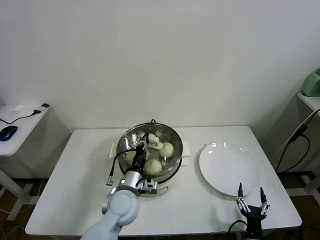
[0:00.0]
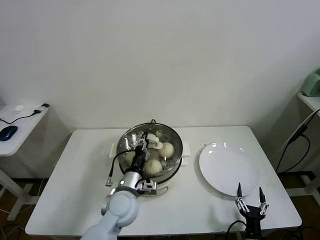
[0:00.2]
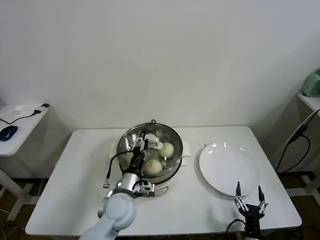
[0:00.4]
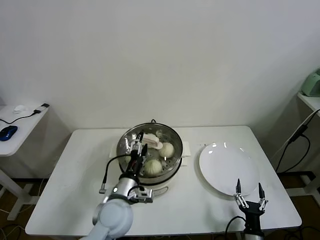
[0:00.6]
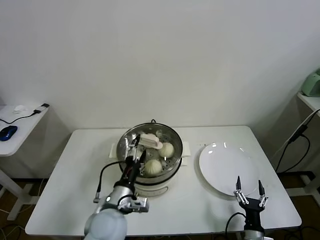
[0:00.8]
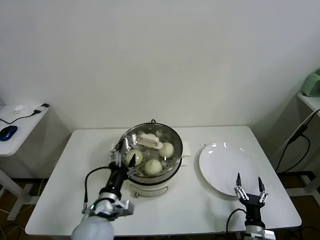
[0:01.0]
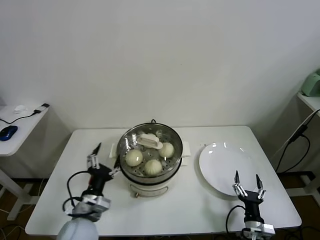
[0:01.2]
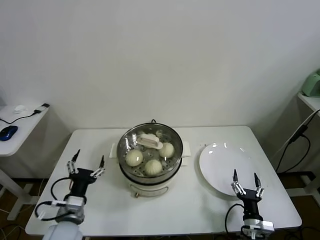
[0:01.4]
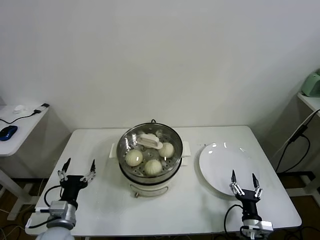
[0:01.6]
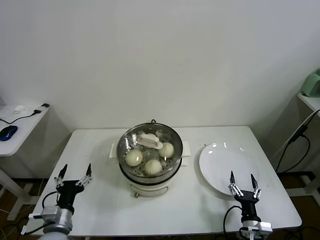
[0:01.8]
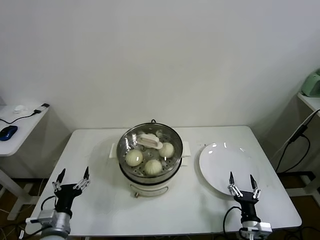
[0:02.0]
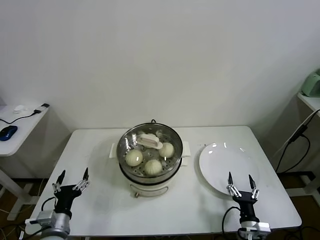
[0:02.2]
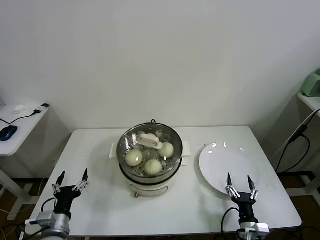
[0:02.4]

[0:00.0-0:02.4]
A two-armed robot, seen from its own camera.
Task of the whole recording: take steamed baozi put them in steamer.
0.0 to 1.2 s: The left gripper heads to the left and backward, covering some 10 cm, and opens its fingers. Meanwhile the right gripper changes place by some 5 cm.
1.2 to 2.4 s: The left gripper is displaced to the left and downward by roughly 15 cm.

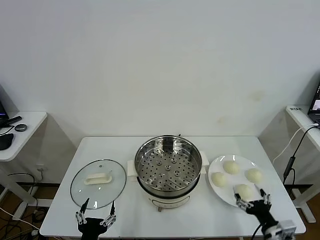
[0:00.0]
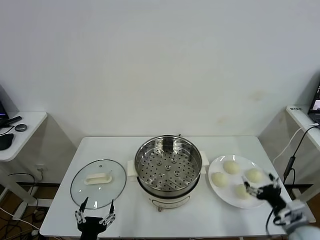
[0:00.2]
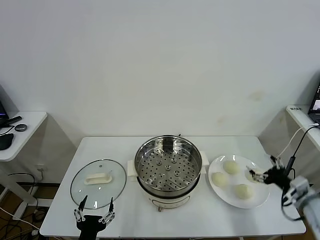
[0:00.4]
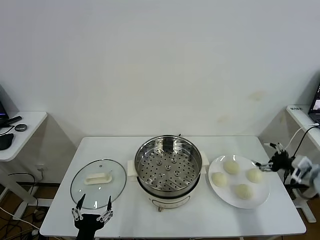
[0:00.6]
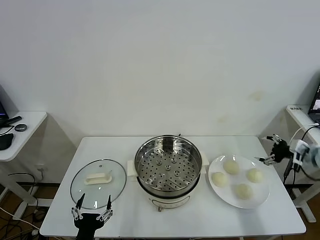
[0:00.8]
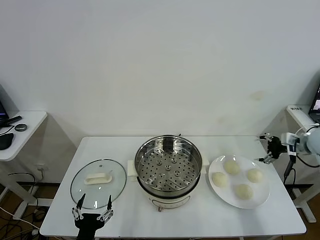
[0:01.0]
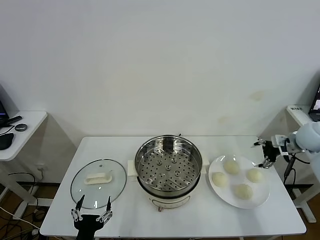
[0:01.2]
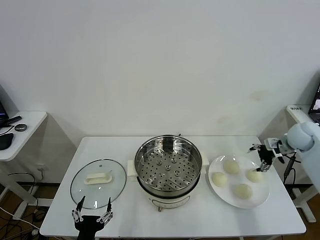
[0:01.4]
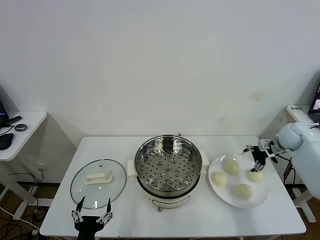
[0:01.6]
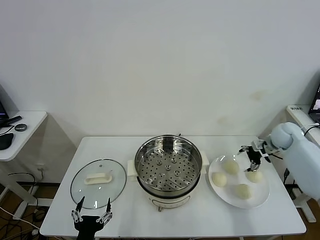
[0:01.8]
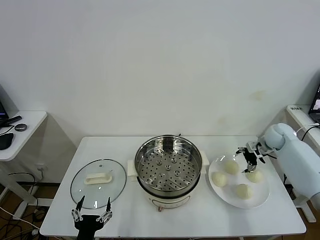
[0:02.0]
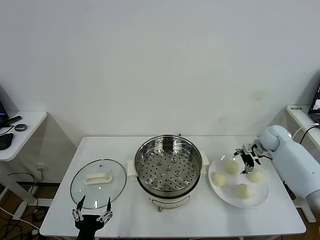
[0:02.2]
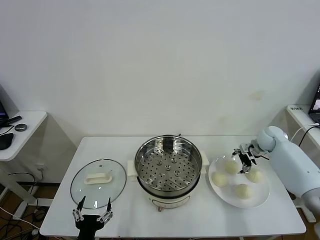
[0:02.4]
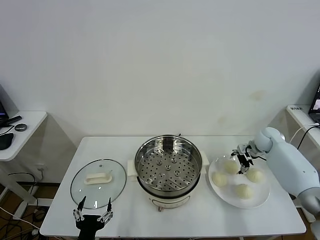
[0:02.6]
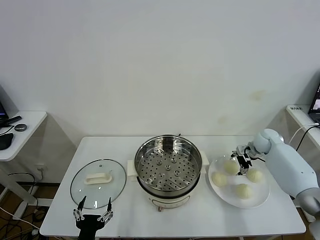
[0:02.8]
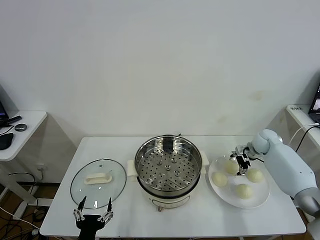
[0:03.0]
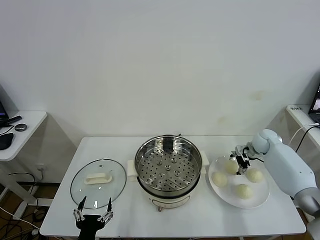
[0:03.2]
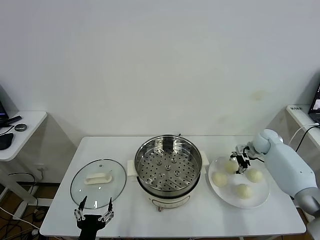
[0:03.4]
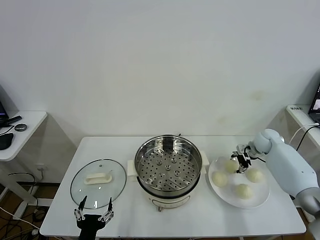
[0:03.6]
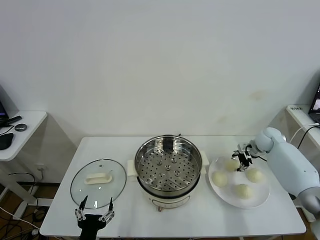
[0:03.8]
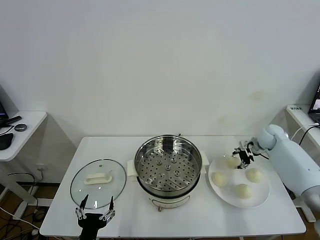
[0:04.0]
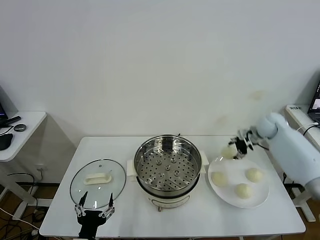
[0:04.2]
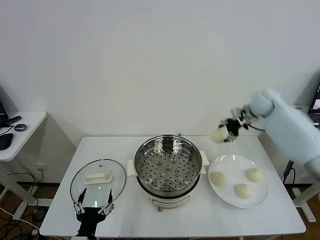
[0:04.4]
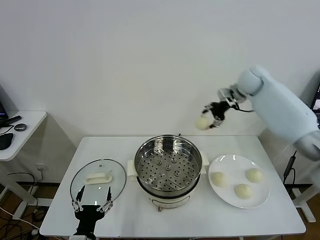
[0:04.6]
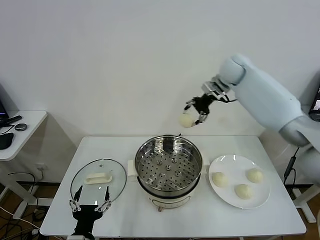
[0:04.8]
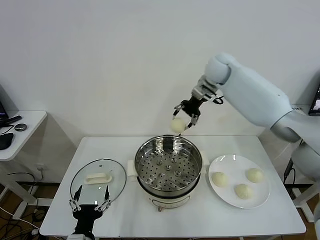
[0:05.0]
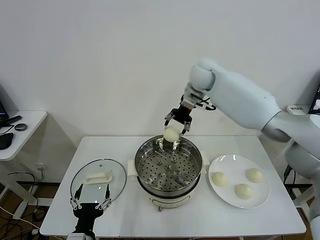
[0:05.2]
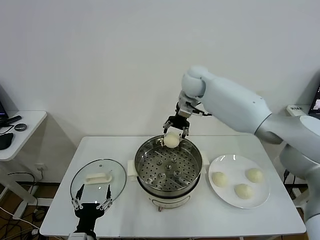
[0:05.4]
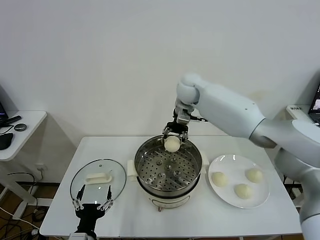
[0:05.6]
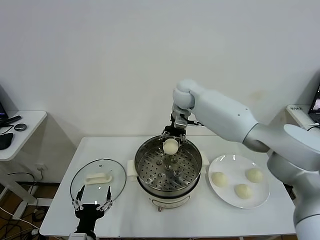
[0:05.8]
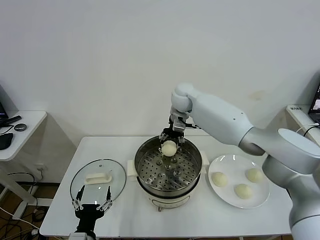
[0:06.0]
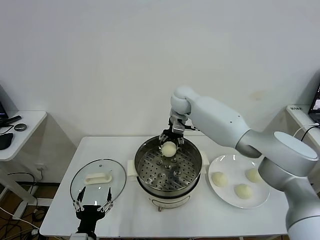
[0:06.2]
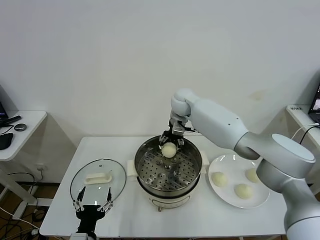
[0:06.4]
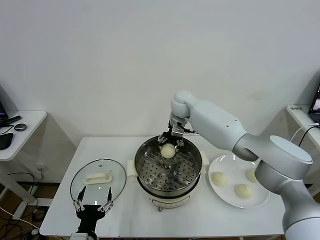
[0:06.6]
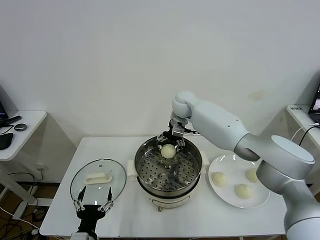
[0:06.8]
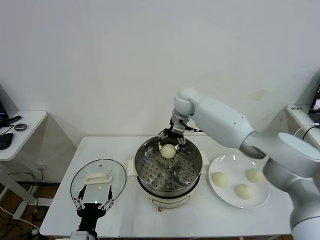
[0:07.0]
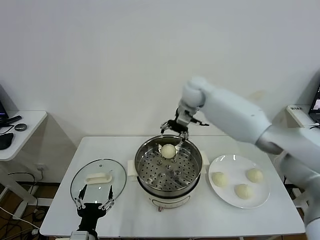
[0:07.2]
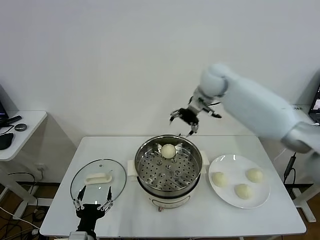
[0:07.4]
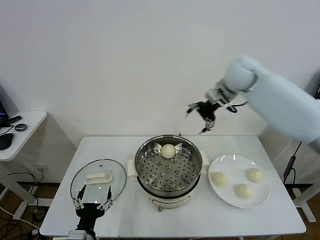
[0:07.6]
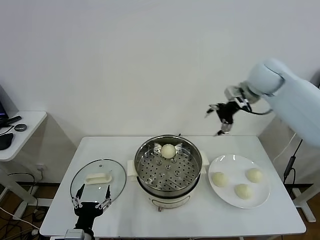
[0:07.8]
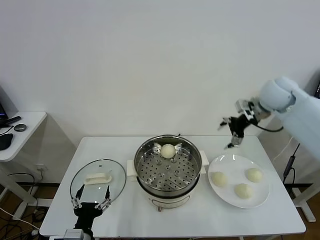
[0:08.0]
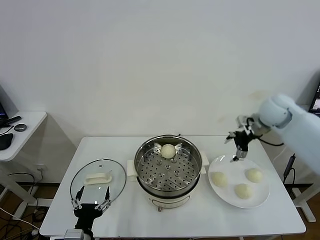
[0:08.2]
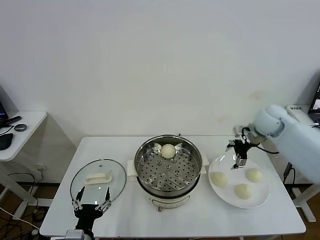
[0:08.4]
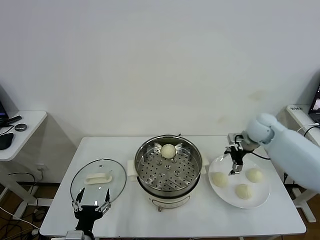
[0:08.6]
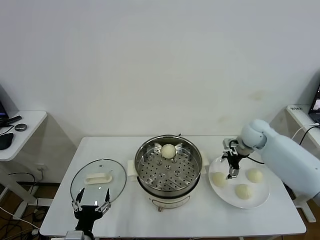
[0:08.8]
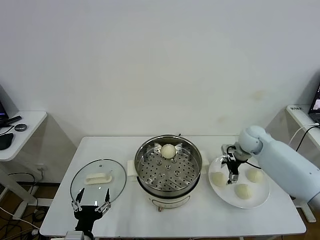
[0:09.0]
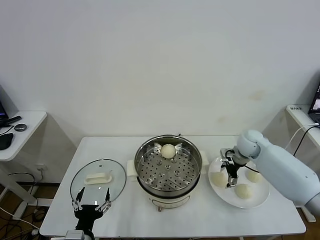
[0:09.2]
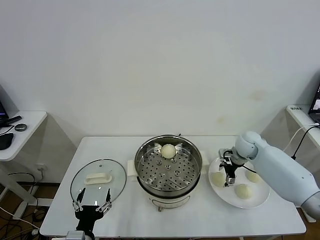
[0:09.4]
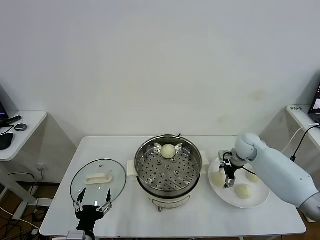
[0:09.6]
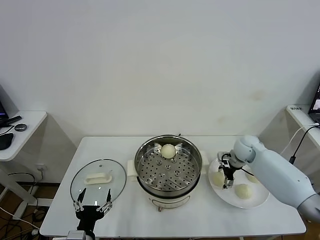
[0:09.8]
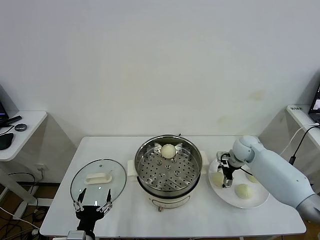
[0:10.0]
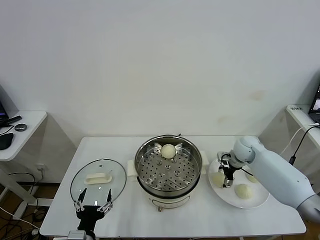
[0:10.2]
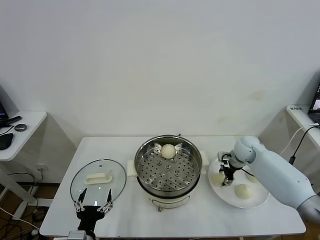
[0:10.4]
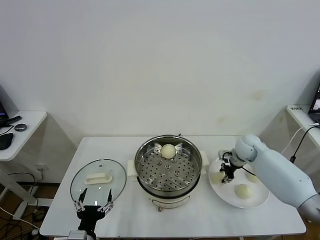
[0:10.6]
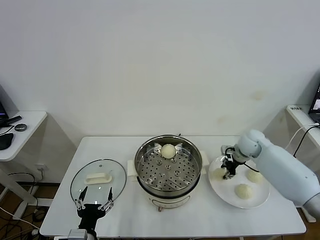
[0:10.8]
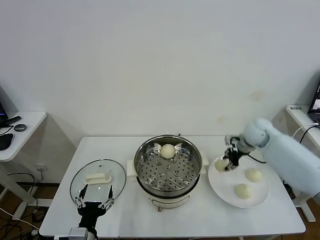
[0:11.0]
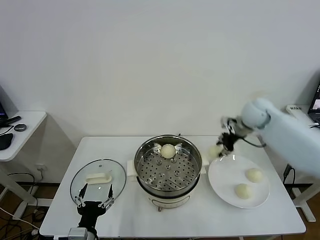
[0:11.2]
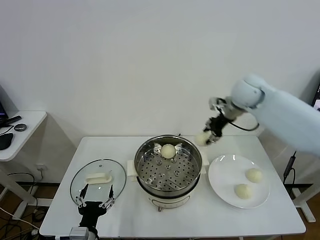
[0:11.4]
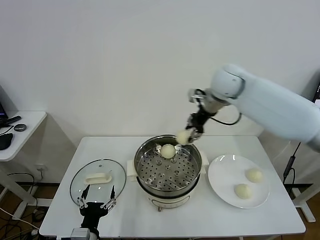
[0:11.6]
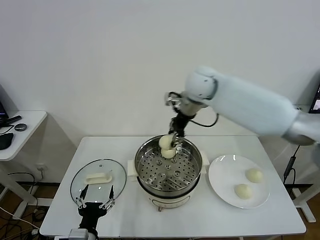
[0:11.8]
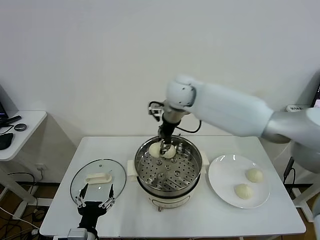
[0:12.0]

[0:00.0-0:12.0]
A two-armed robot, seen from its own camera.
Task of the whole recording: take steamed baozi put them in steamer.
Step, 0.0 to 3.4 s: Grasp the baozi in the plate with right gripper.
Step, 3.6 to 7.0 s: Place the baozi on the steamer with right gripper.
Step, 7.2 to 10.4 s: Grasp the baozi in the plate with right gripper.
1.6 to 3.0 s: The right gripper shifts approximately 10 cm downward and to the left.
3.0 to 4.4 s: The right gripper shifts some 15 cm upward, and closes up.
4.4 to 6.0 s: The right gripper goes approximately 30 cm to the left.
6.0 to 7.6 s: The right gripper is displaced to the right and upward by roughly 20 cm, and opens.
7.6 to 9.0 s: The right gripper goes some 25 cm downward.
9.0 to 10.4 s: The right gripper travels downward by some 5 cm, and closes its fingers.
10.4 to 12.0 s: The right gripper heads to the left and upward, covering roughly 35 cm.

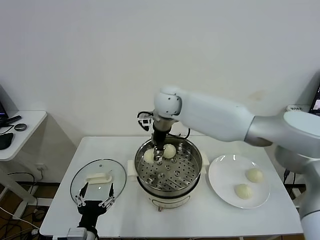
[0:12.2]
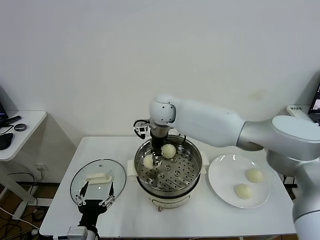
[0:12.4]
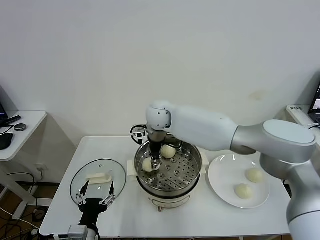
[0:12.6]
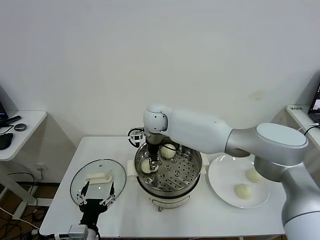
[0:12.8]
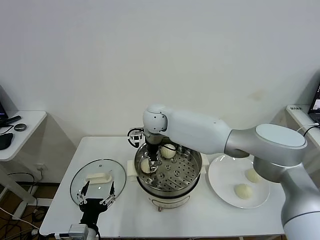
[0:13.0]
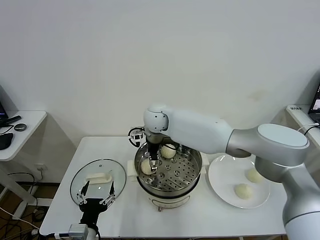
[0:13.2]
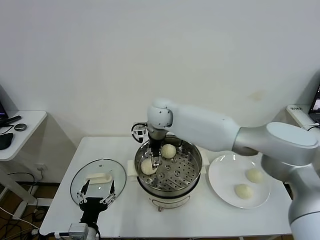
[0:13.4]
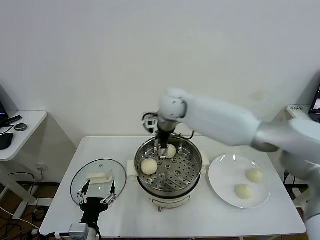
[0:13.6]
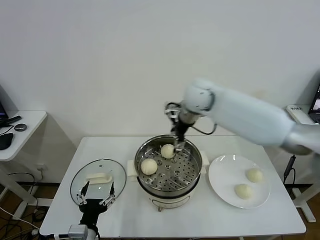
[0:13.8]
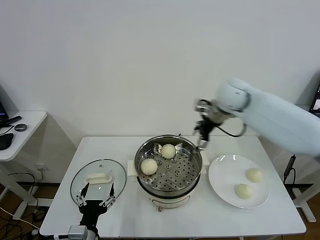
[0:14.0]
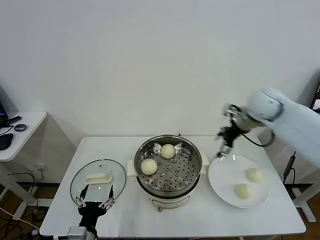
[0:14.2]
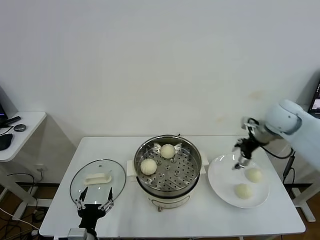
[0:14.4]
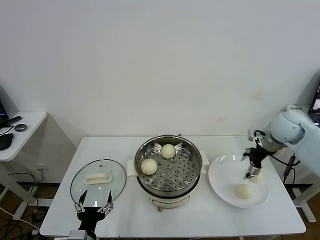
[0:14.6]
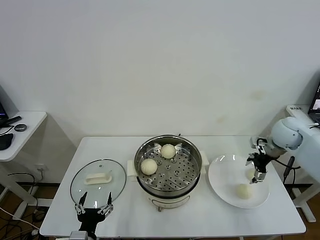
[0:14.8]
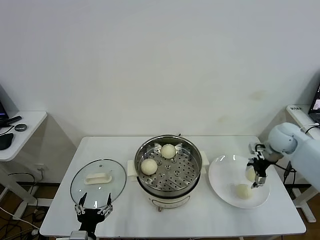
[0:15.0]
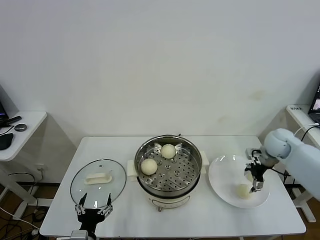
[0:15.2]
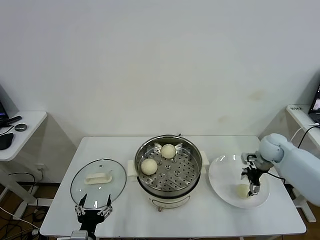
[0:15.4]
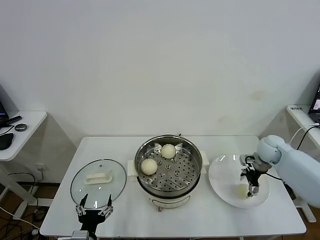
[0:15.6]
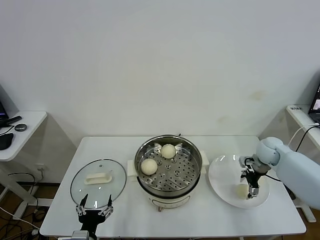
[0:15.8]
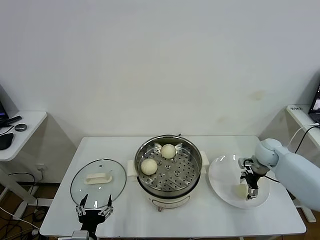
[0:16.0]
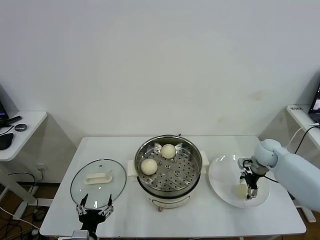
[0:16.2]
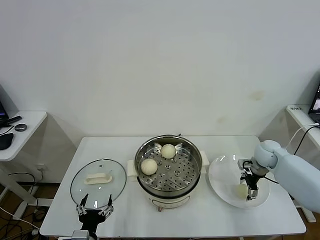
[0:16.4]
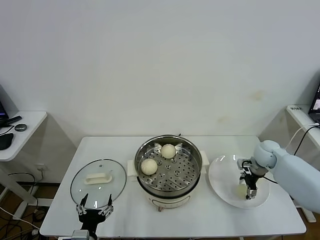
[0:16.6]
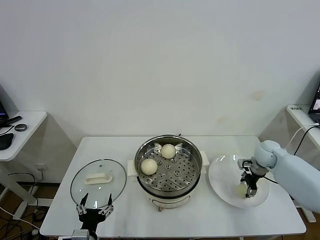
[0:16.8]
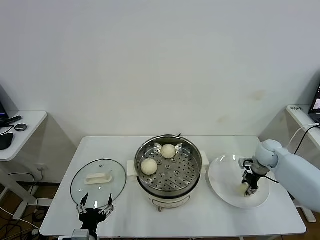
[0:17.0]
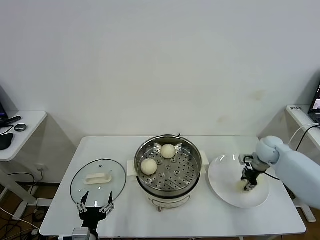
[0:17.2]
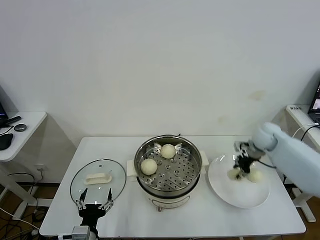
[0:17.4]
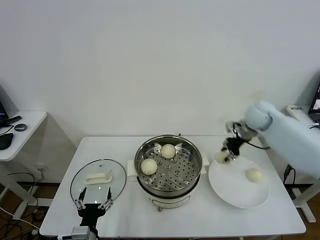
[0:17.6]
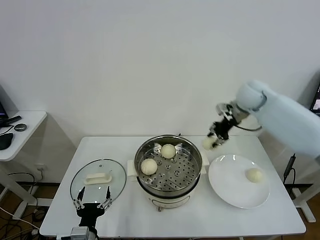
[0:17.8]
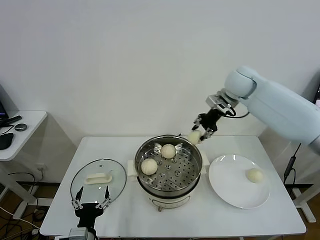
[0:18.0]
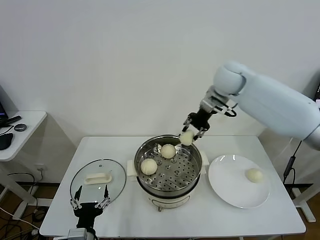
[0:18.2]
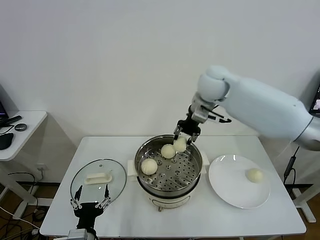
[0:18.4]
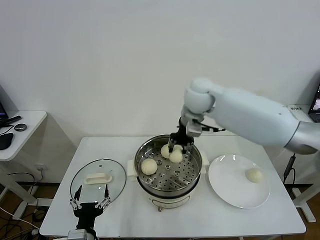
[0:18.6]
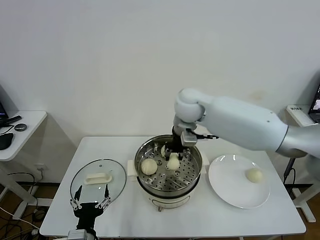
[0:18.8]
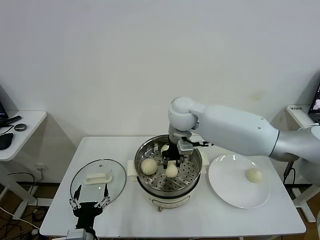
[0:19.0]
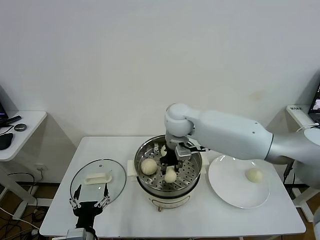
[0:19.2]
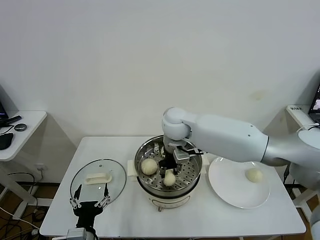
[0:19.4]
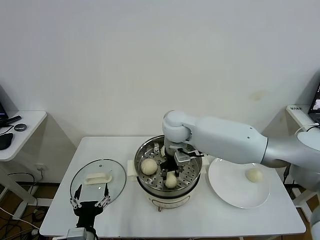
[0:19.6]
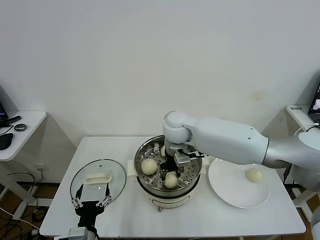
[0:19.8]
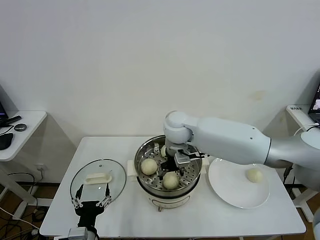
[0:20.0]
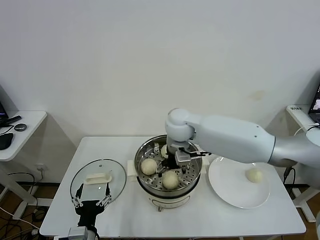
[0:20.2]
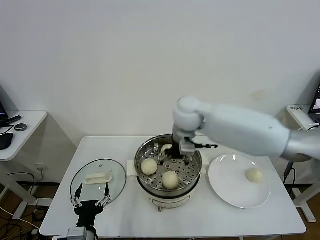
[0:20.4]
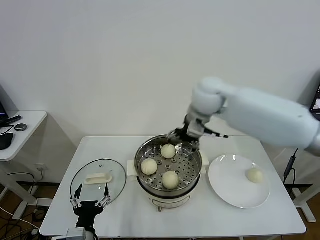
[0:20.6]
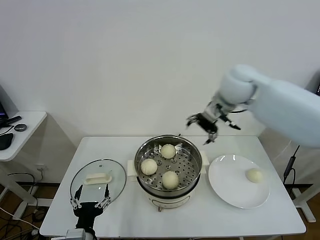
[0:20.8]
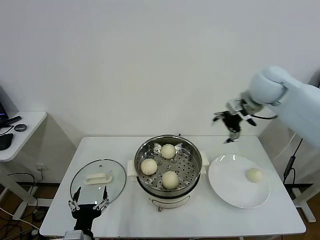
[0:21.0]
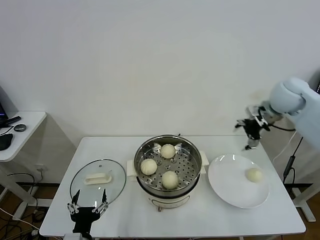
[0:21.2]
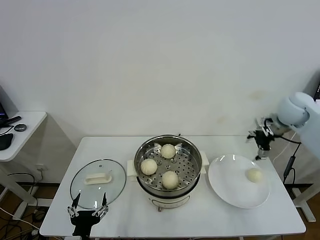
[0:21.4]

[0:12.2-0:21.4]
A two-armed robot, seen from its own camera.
Task of the whole recording: take steamed baozi put them in steamer.
Step, 13.6 to 16.8 s: Grasp the baozi in the plate with right gripper.
Step, 17.0 to 20.2 s: Place the baozi on the steamer with right gripper.
12.2 to 13.8 s: The right gripper is displaced to the right by some 10 cm, and opens.
13.8 to 15.2 s: The right gripper heads to the right and downward, covering approximately 35 cm.
15.2 to 16.8 s: The right gripper heads downward, covering some 5 cm, and closes up.
16.8 to 18.4 s: The right gripper moves upward and to the left, approximately 35 cm, and closes.
18.4 to 19.8 s: The right gripper moves downward, to the left and backward, about 15 cm.
19.8 to 21.4 s: The right gripper heads to the right, covering roughly 35 cm, and opens its fingers.
